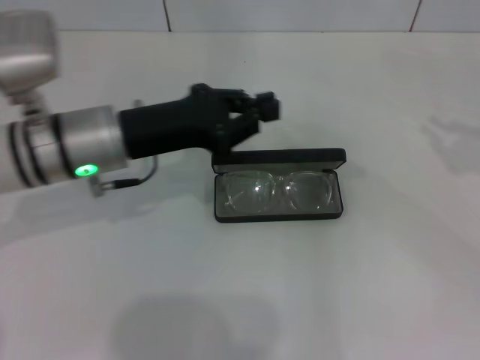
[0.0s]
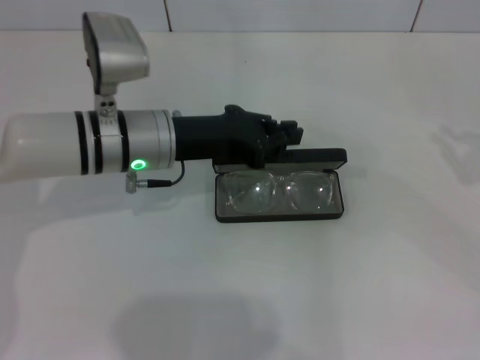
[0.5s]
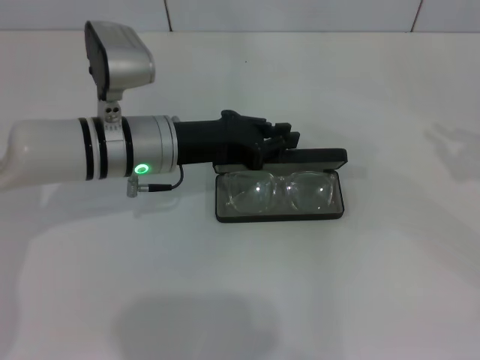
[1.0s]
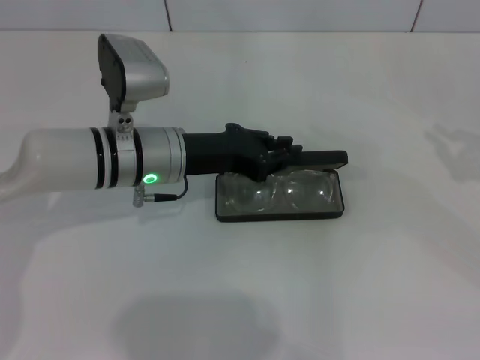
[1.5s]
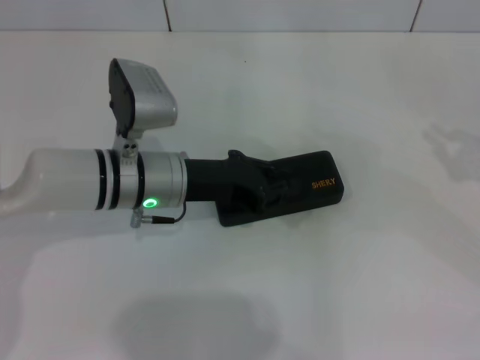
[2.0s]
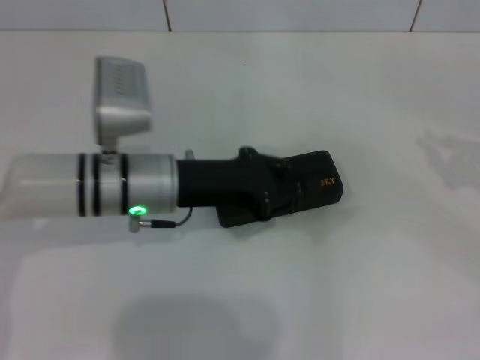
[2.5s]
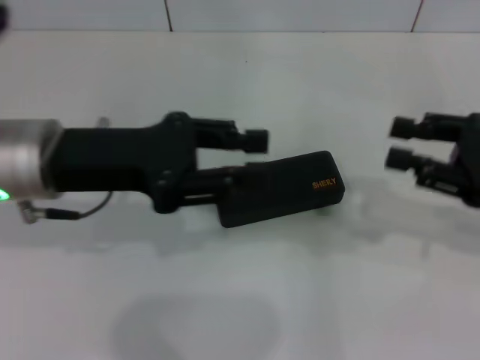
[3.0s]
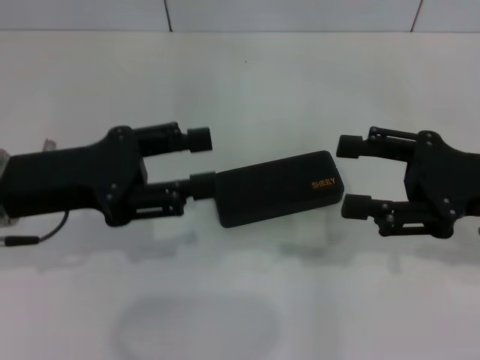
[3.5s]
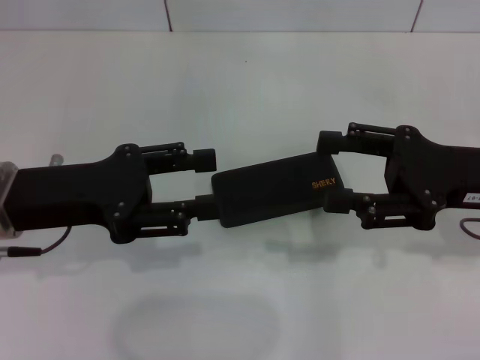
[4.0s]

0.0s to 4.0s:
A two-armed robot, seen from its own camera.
Step, 0.0s to 2.0s: Close the glasses case with your left hand.
0.0s to 2.0s: Both grippers travel together downward, approximately 5 cm.
2.0s to 4.0s: The right gripper heads to the left, covering some 15 cm, and opens up. The left gripper is displaced to the left, upward and backward by approximately 15 cm, and opens up.

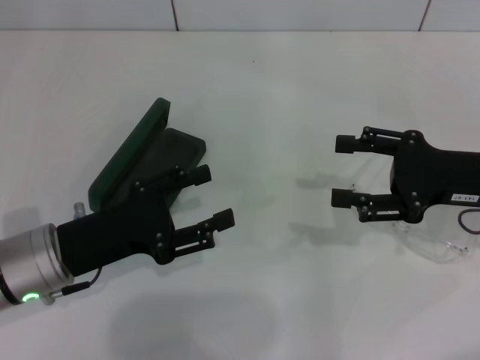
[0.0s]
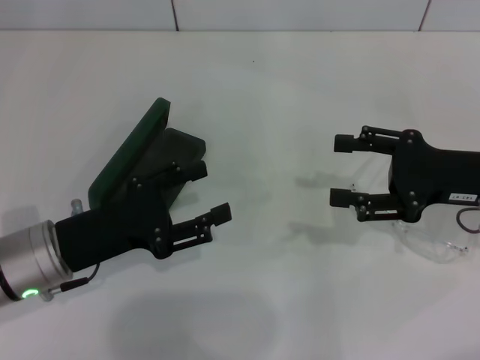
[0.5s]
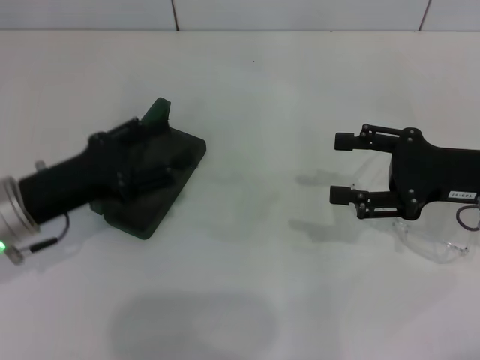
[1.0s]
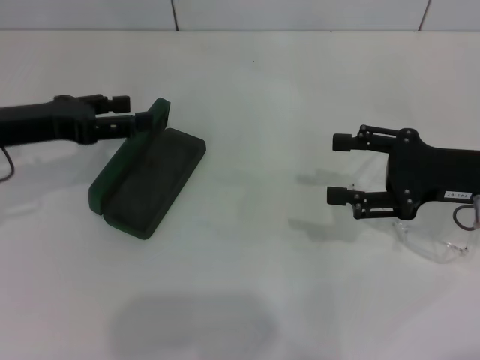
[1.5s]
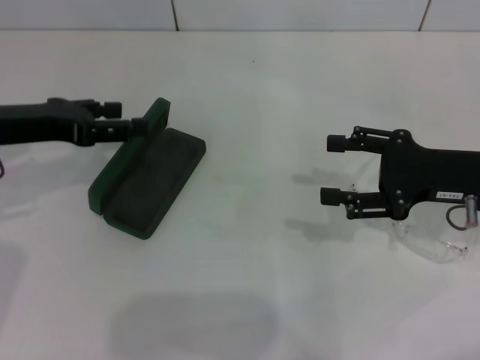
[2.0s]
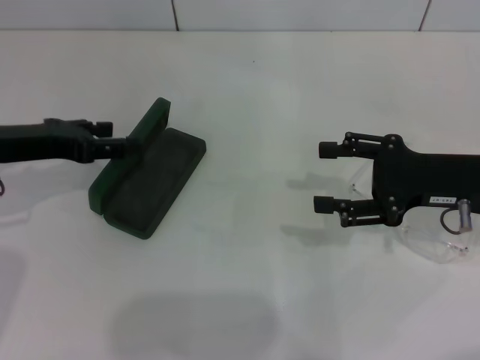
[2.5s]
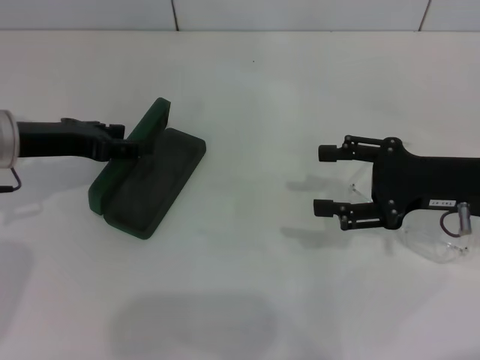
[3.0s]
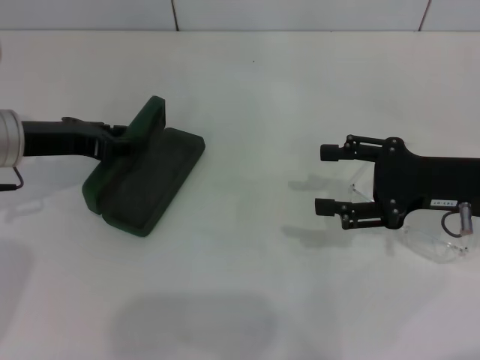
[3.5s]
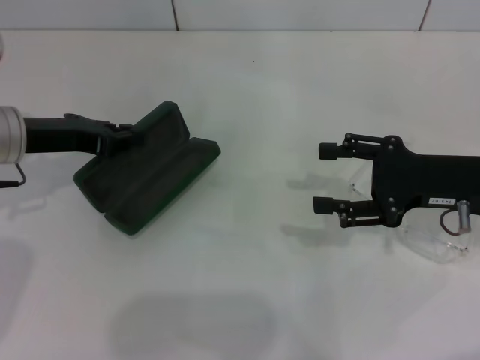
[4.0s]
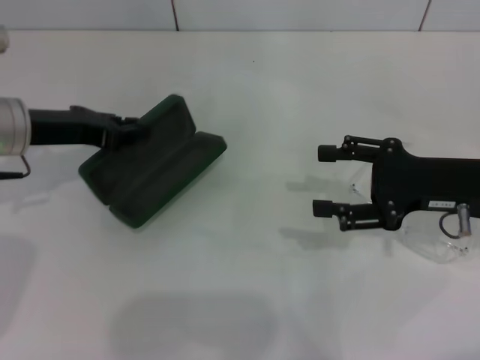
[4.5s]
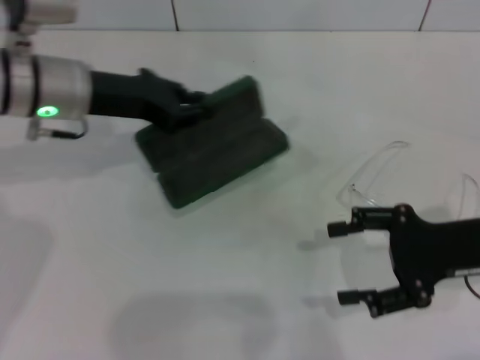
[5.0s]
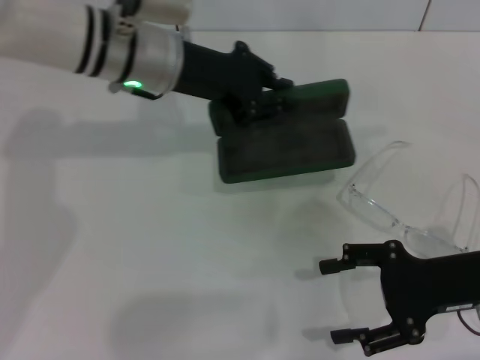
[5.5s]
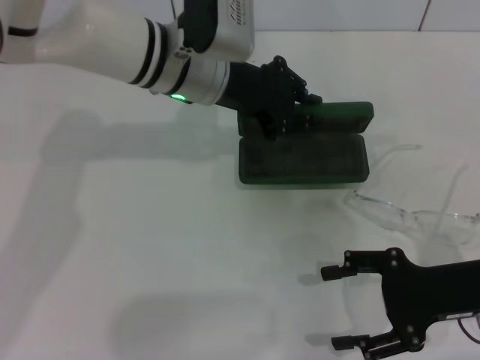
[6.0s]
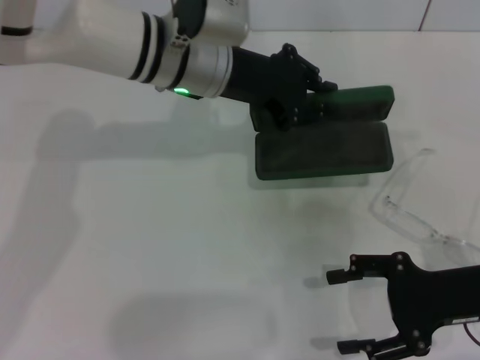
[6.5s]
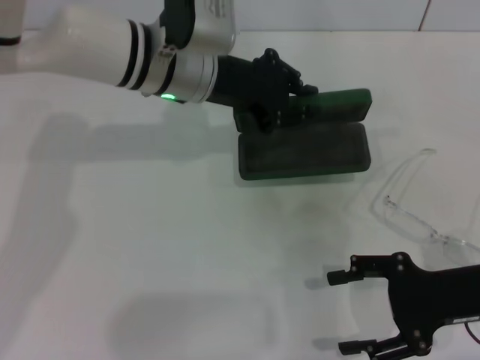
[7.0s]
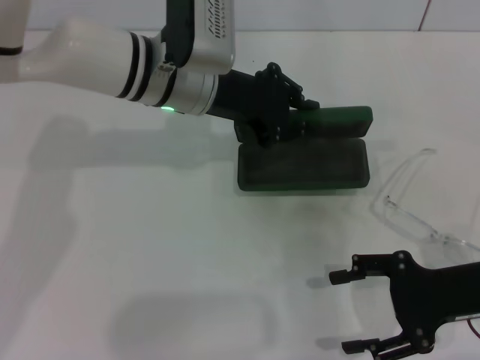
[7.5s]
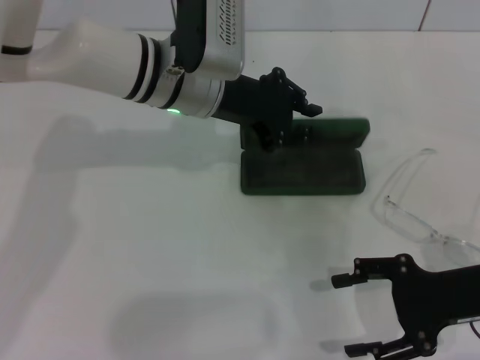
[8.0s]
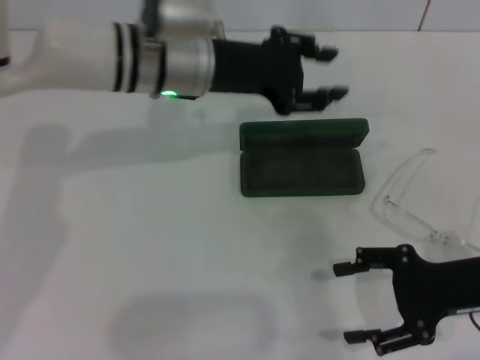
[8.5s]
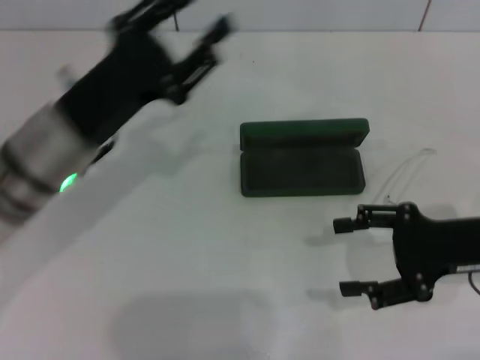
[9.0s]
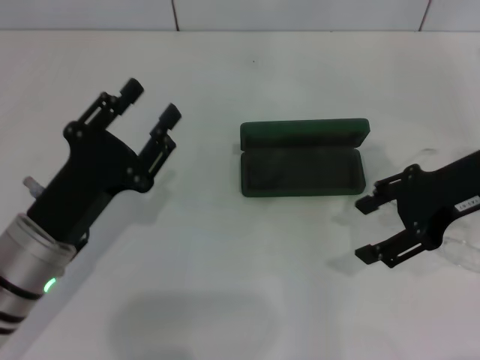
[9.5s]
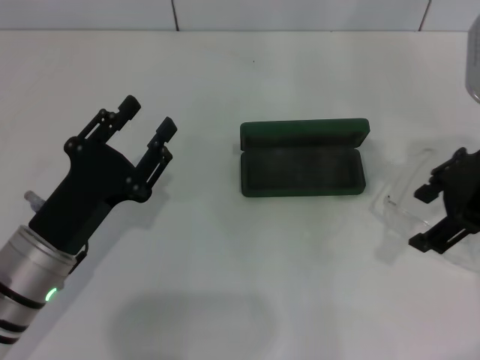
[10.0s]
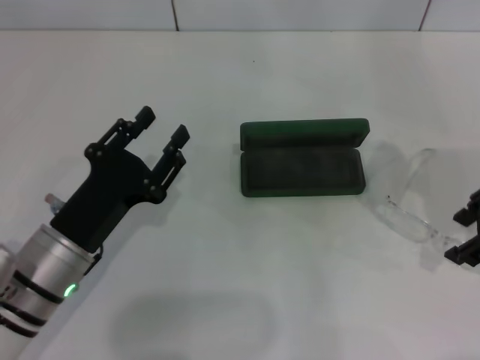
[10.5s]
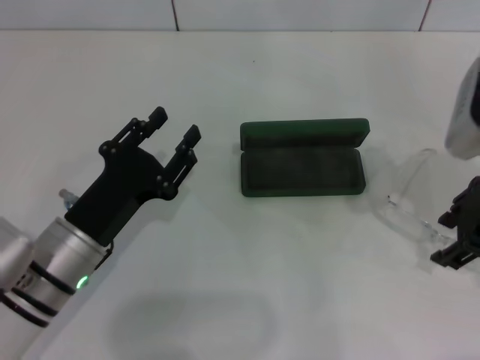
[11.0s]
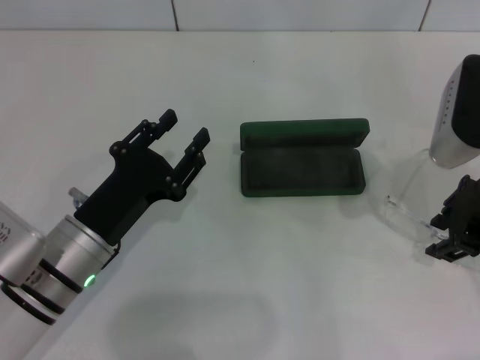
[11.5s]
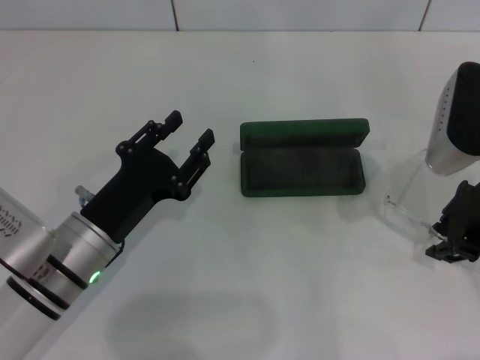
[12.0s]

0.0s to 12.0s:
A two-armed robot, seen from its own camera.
Step, 0.0s to 3.5s: Grab the glasses case with your left hand.
Step, 4.0s to 7.5s: Place the glasses case in the center of the table with your left hand.
0.0s to 2.0s: The left gripper heads forward, upward and to the left, covering approximately 15 cm.
2.0s to 4.0s: The left gripper closes its fingers.
4.0s to 6.0s: The right gripper moves backward, some 5 cm; the left gripper goes some 20 cm to the right.
6.0s to 8.0s: The grippers move only a little.
8.0s to 10.0s: The left gripper moves backward, to the left and downward, about 25 cm, and opens up; the right gripper moves upward and forward, roughly 15 cm.
10.0s to 12.0s: The right gripper moves downward, roughly 5 cm, and closes up.

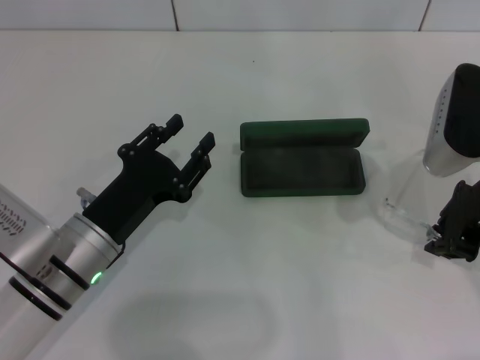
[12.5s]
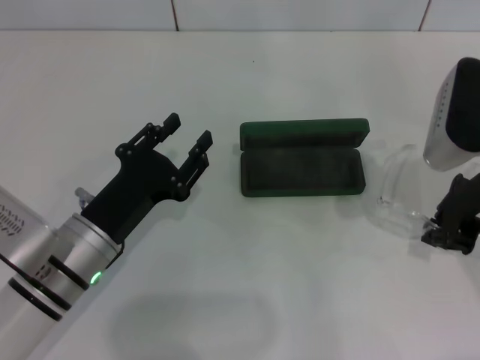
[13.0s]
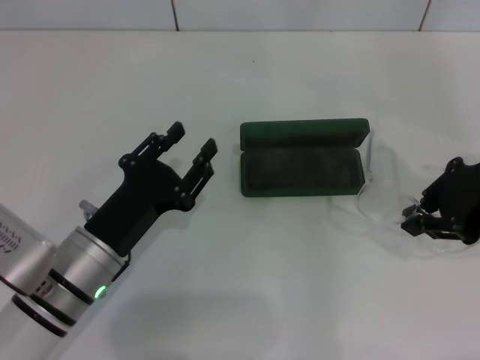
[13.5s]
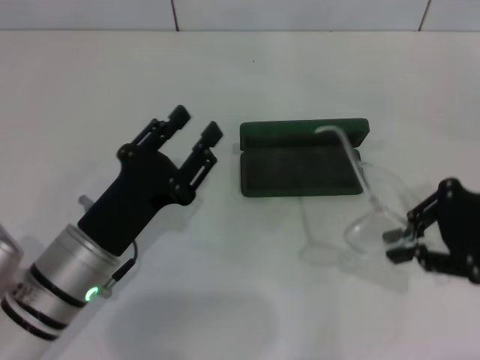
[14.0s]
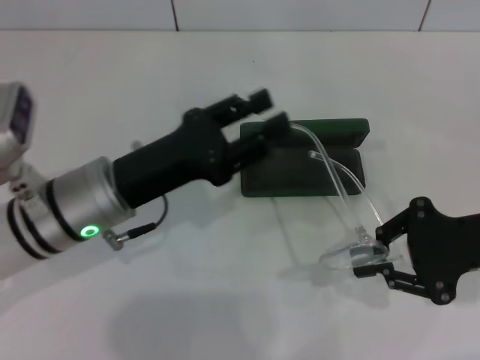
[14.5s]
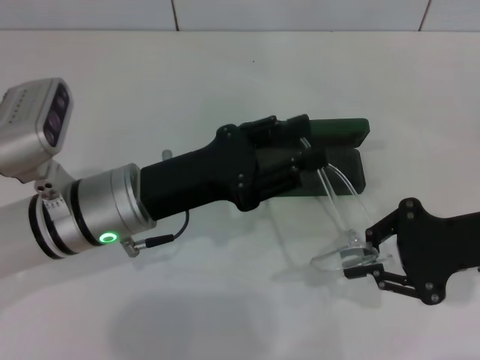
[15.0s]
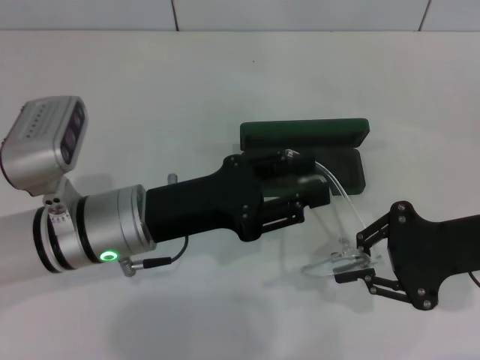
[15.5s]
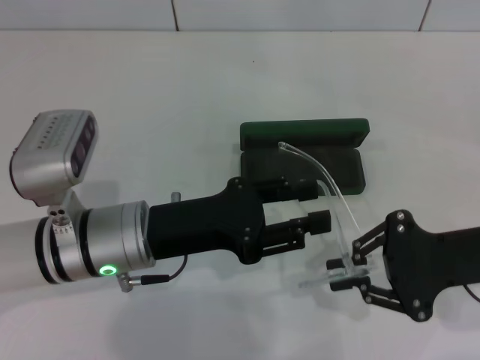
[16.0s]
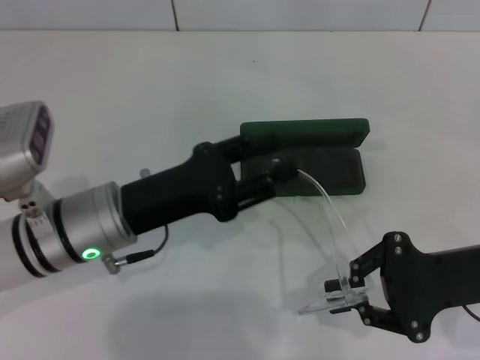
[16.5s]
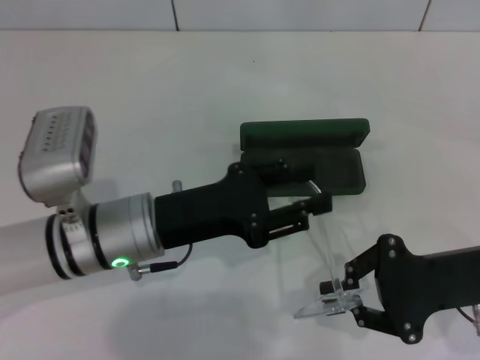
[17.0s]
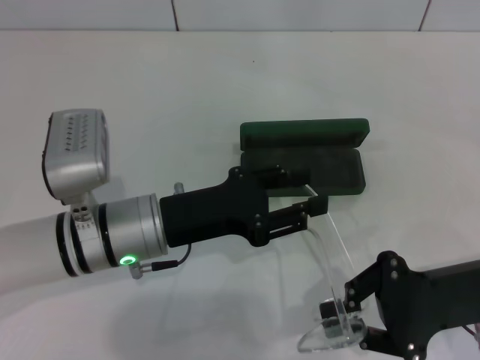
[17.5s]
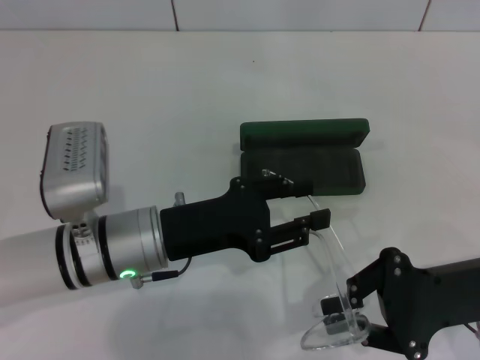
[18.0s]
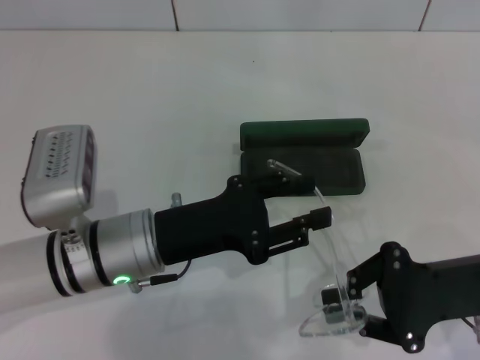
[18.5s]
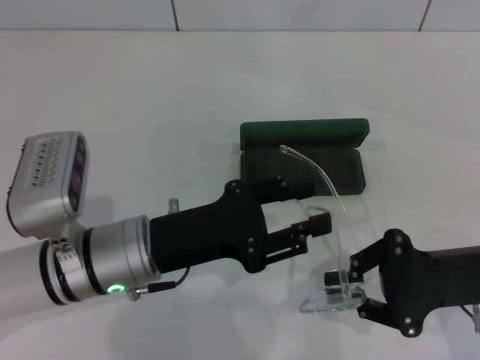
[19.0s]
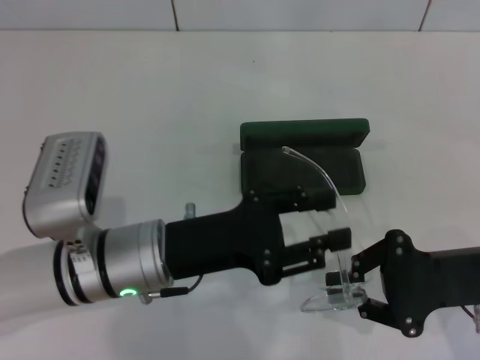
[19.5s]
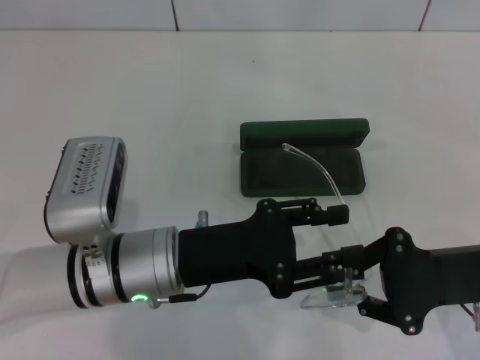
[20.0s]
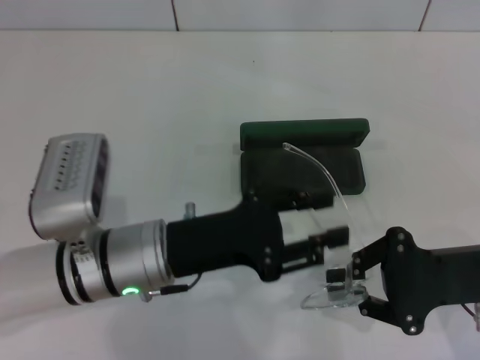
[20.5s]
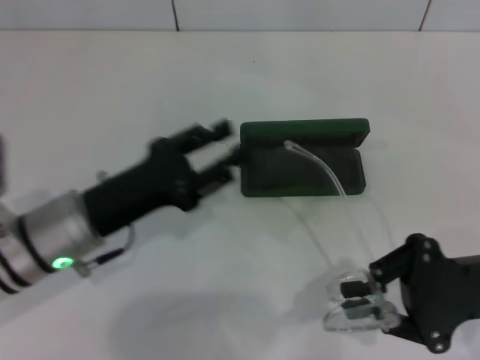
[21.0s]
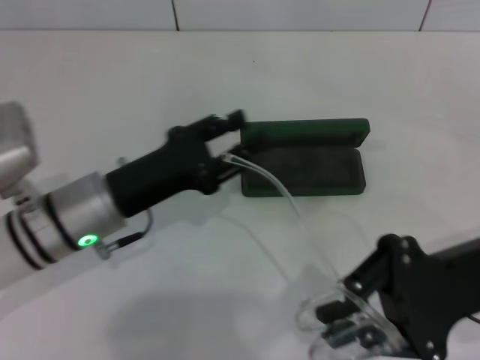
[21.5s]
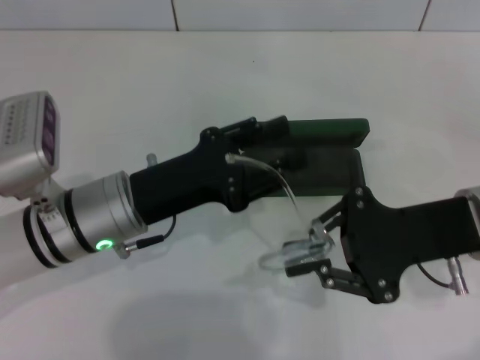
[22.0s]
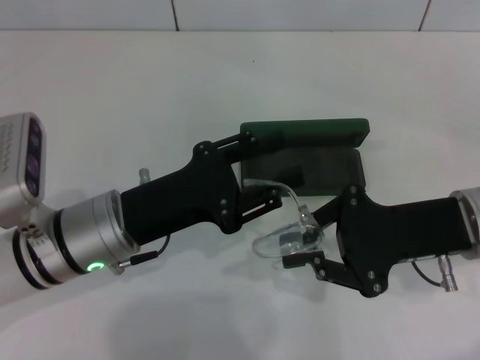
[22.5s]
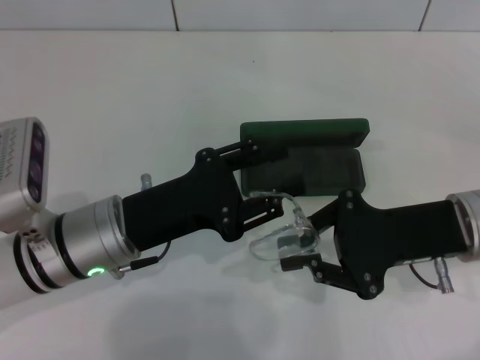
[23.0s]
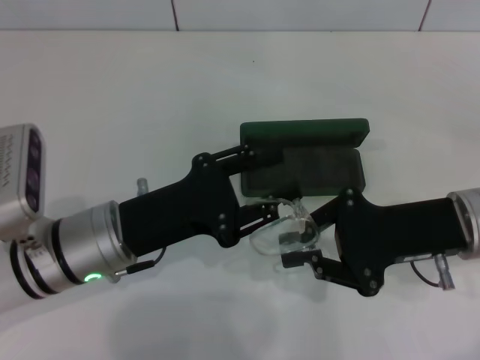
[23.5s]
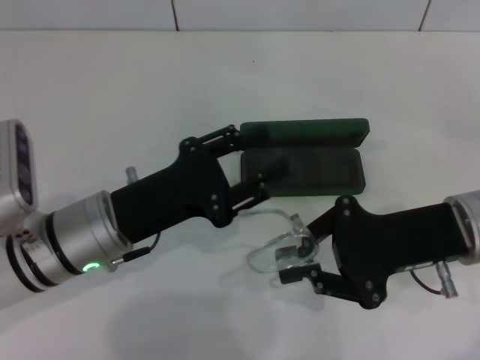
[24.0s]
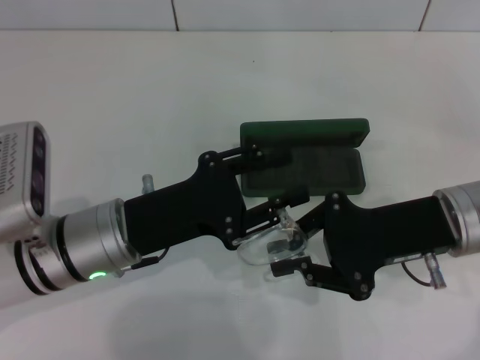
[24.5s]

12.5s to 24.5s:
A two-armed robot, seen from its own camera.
12.5s to 14.5s: The left gripper heads upward, covering some 5 cm; the right gripper changes place by about 10 cm.
18.5s to 20.5s: The grippers make only small movements.
20.5s to 22.5s: The right gripper moves some 5 cm.
22.5s to 24.5s: The grippers stay close to where they were, moving slightly.
